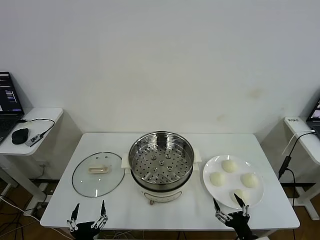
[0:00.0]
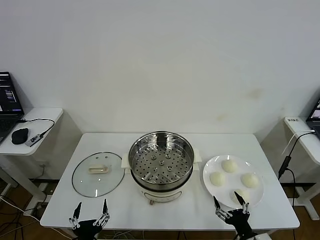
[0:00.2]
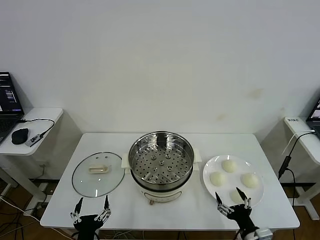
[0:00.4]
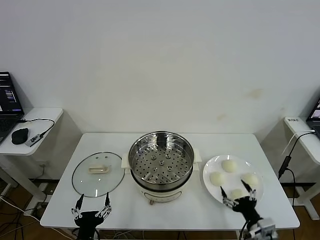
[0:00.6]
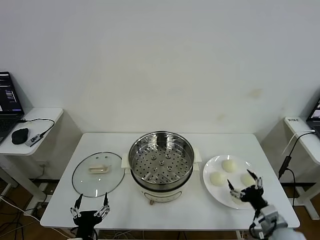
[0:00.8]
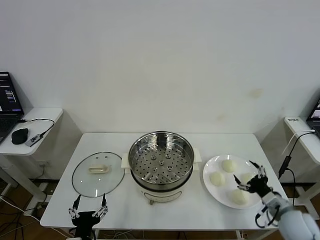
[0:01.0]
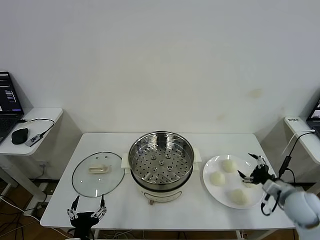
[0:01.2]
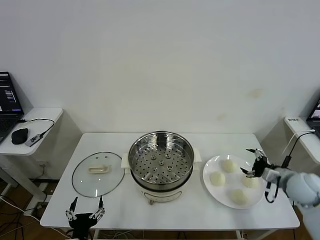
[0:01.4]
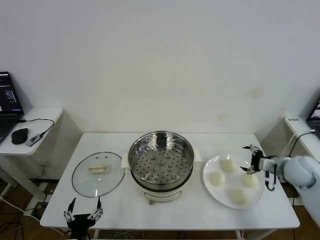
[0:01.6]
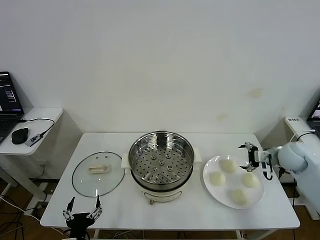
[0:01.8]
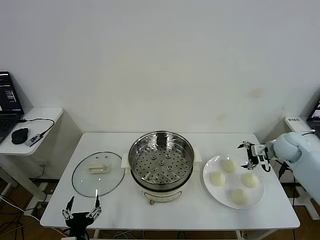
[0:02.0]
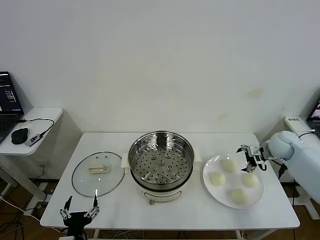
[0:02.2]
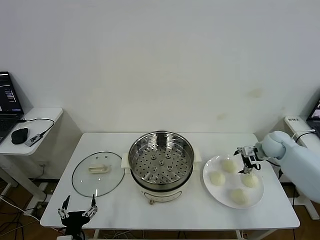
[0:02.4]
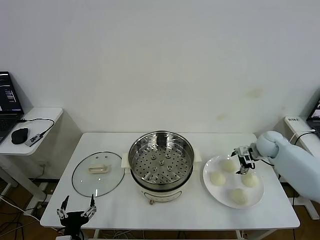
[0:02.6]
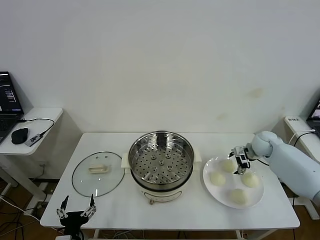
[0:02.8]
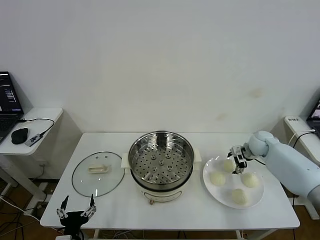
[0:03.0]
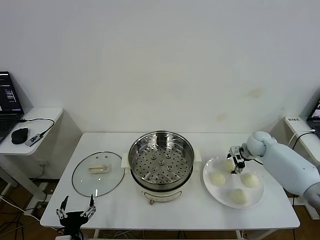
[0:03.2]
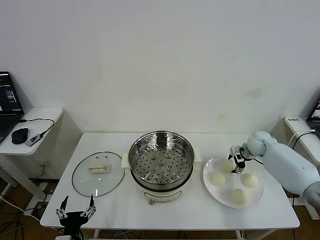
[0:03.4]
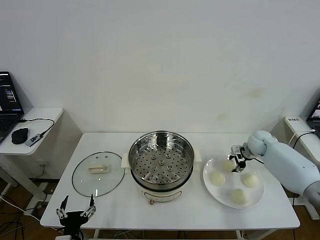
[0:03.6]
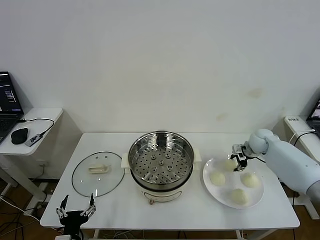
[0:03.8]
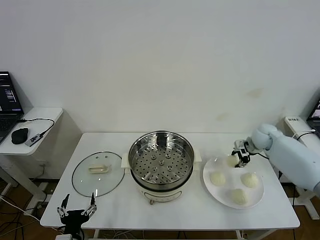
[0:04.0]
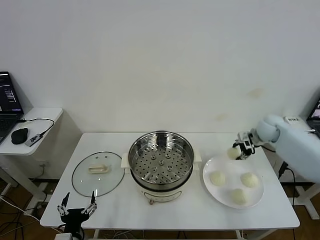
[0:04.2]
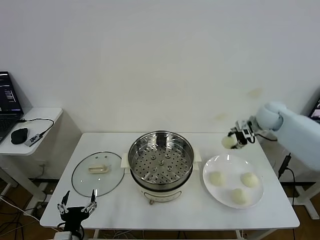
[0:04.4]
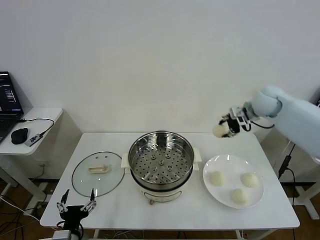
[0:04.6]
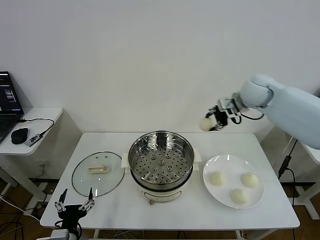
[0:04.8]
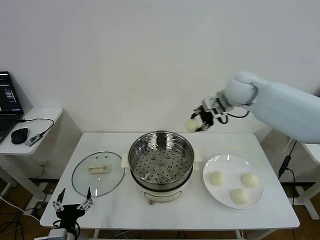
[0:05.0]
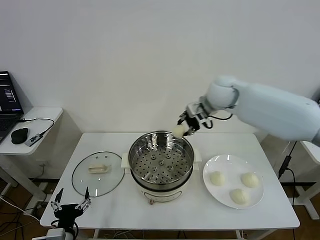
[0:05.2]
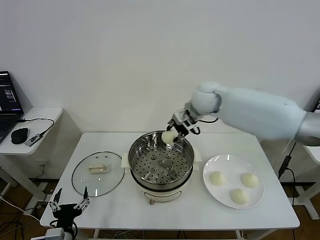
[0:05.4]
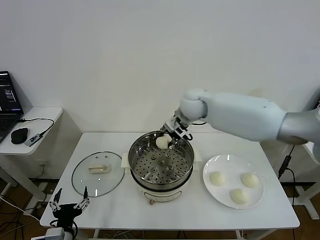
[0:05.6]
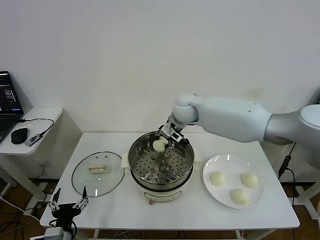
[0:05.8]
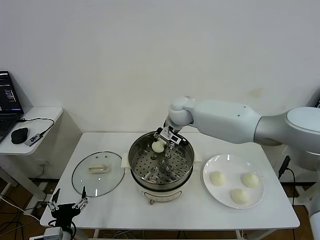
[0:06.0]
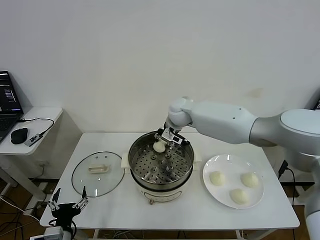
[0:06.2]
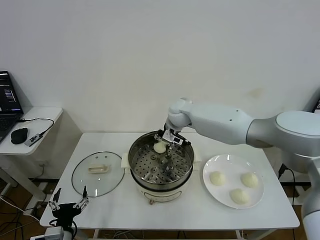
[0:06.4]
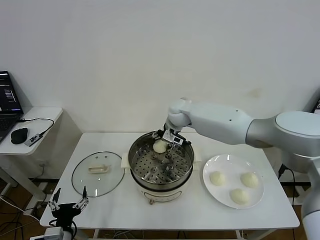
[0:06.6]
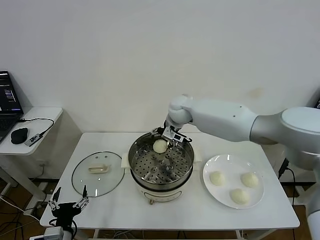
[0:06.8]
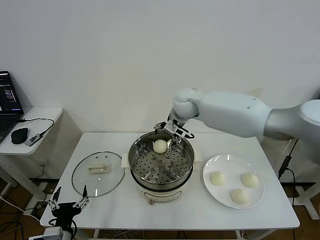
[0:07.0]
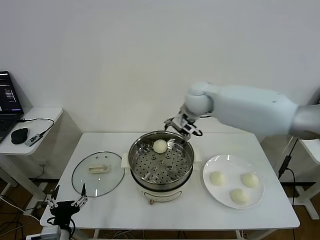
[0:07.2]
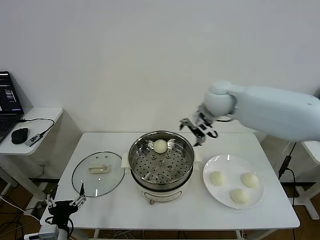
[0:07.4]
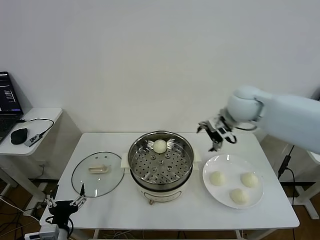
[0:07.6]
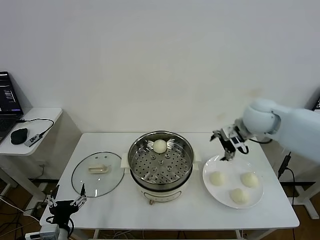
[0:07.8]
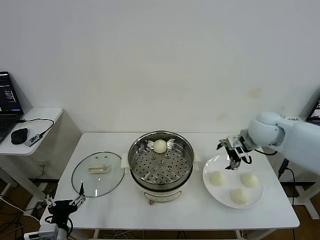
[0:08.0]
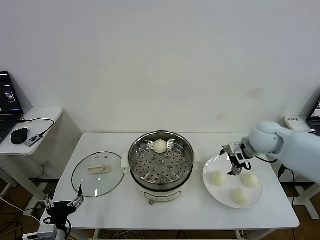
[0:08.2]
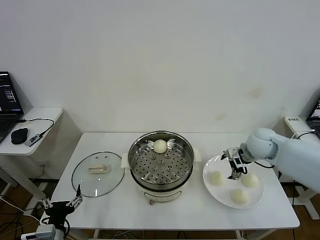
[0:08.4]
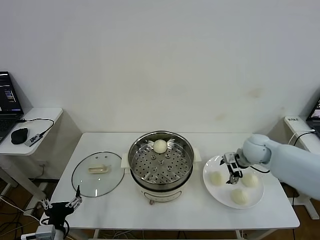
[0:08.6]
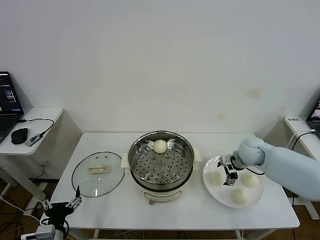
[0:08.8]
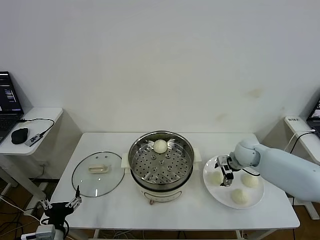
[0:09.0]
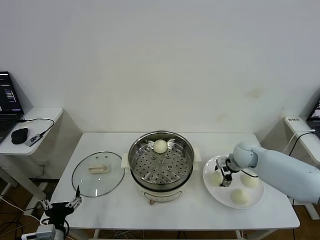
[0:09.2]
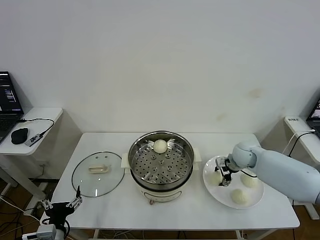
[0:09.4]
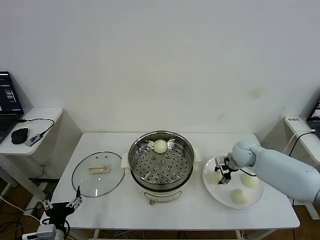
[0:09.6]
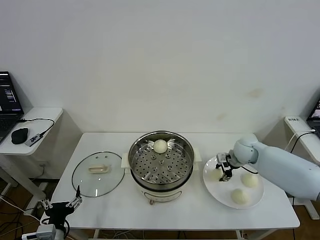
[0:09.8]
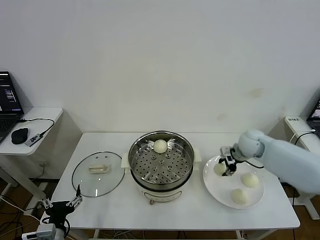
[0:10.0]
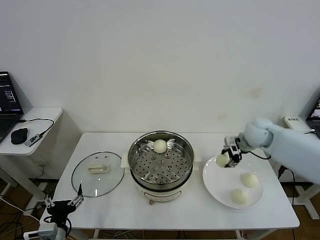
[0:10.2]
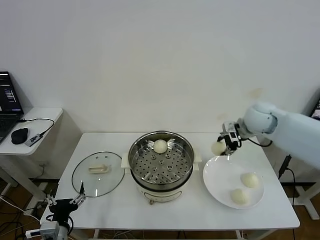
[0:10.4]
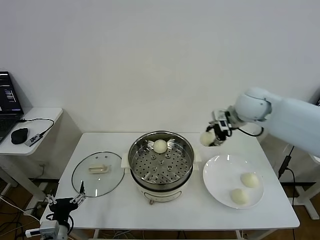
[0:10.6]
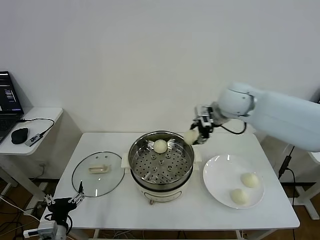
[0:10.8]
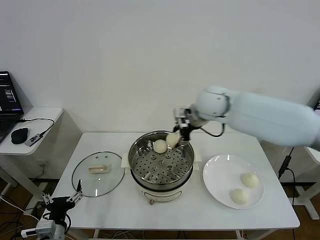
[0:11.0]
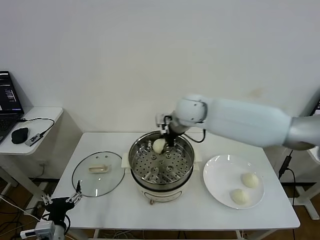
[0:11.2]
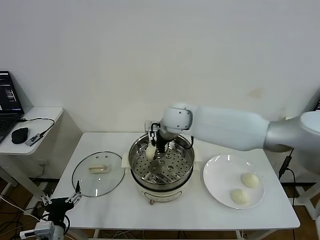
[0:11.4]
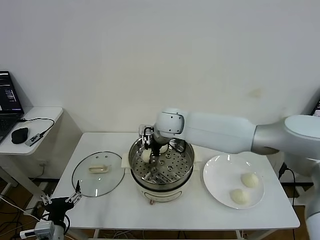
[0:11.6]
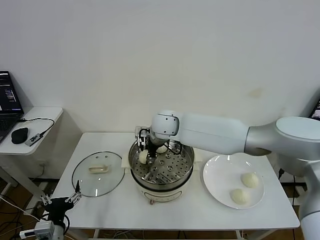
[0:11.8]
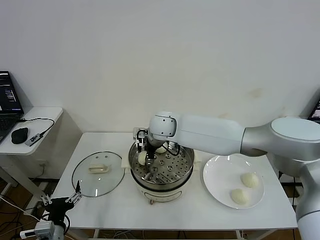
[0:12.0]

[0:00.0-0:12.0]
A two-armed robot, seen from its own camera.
Task of the whole recording: take steamed baozi put them in steamer then cover it.
Step, 0:00.0 to 0:03.4: Grasp the baozi in the plate with right gripper.
Step, 0:03.6 to 0:06.6: Place the baozi on the steamer with right gripper.
Step, 0:06.8 to 0:09.6: Grasp the baozi in the plate with right gripper.
0:01.6 to 0:03.0: The right gripper heads forward and downward, covering about 15 cm.
0:03.0 to 0:04.4: The right gripper heads upward, covering approximately 20 cm, and closes its fingers.
0:04.4 to 0:06.0: The right gripper shifts roughly 30 cm to the left.
0:06.0 to 0:07.6: The right gripper heads to the right and backward, covering some 20 cm, and opens its fingers.
0:07.6 to 0:09.0: The right gripper goes about 20 cm downward.
0:09.0 to 0:10.4: The right gripper shifts roughly 20 cm upward, and closes its fingers.
0:10.4 to 0:12.0: The right gripper moves to the left, about 30 cm.

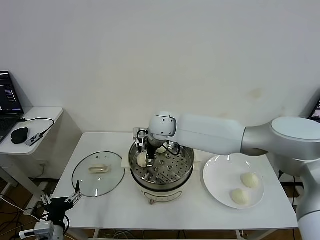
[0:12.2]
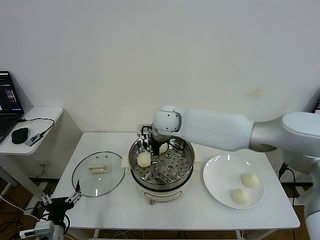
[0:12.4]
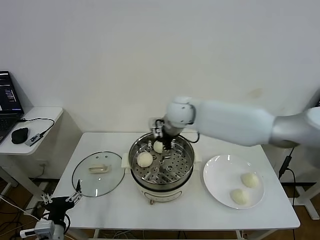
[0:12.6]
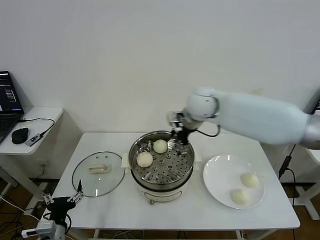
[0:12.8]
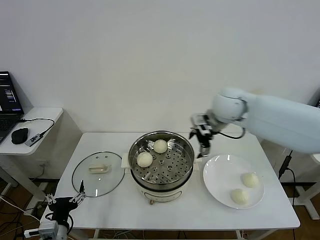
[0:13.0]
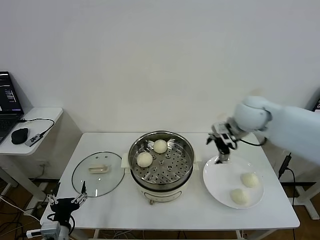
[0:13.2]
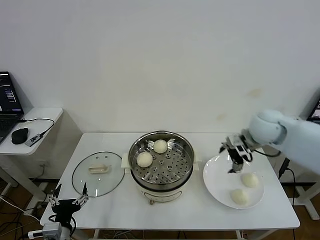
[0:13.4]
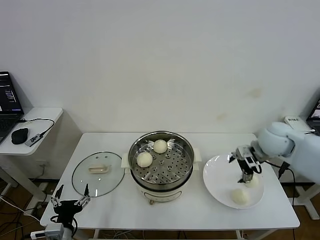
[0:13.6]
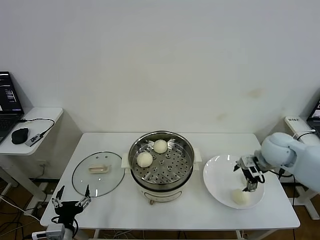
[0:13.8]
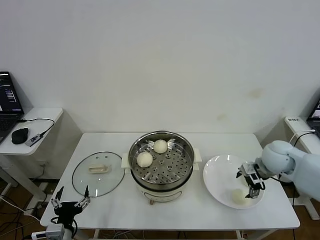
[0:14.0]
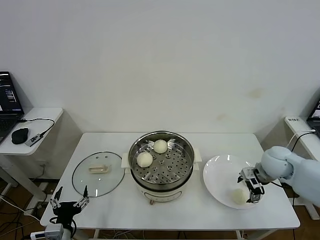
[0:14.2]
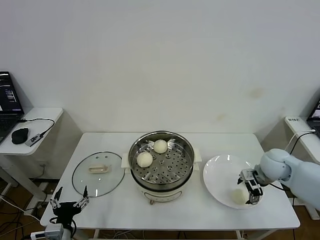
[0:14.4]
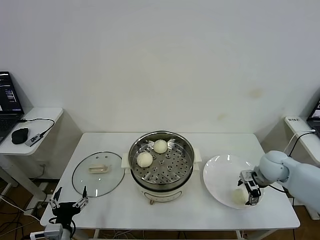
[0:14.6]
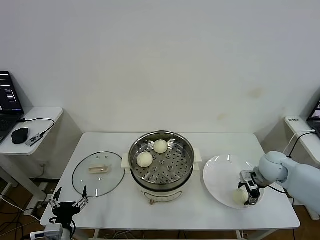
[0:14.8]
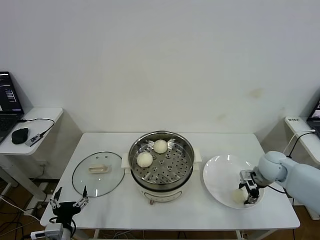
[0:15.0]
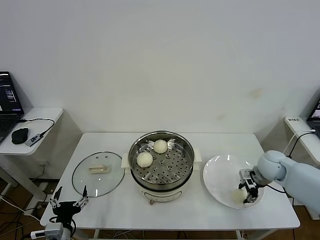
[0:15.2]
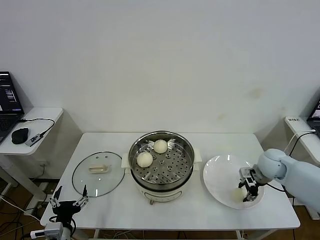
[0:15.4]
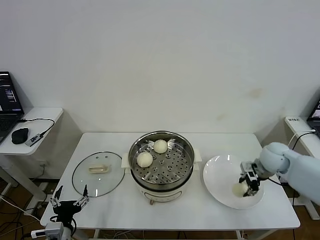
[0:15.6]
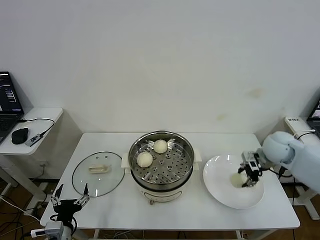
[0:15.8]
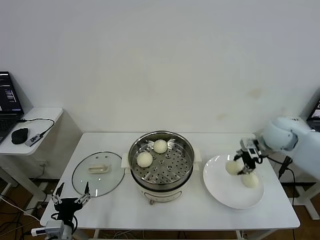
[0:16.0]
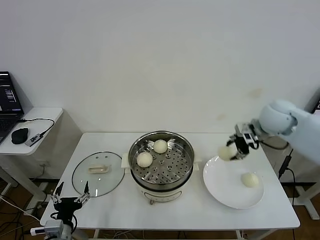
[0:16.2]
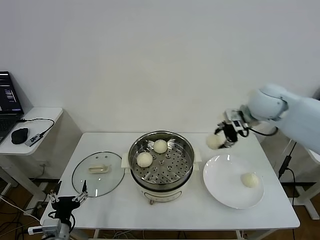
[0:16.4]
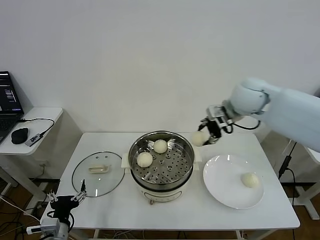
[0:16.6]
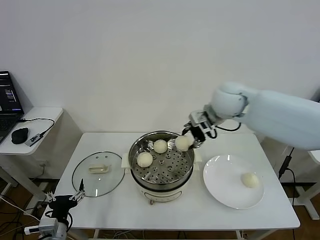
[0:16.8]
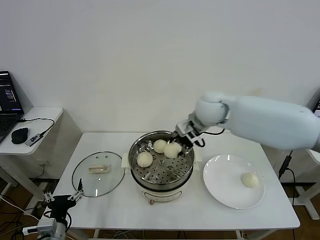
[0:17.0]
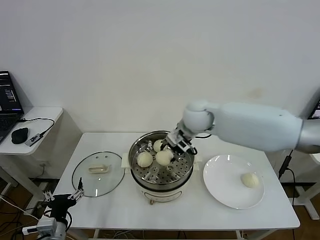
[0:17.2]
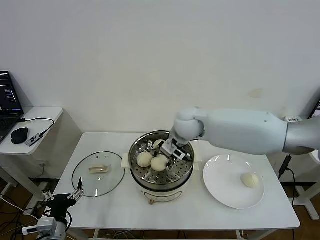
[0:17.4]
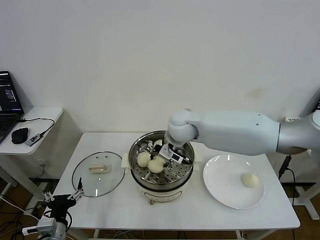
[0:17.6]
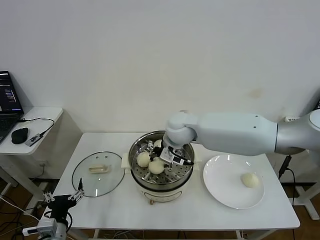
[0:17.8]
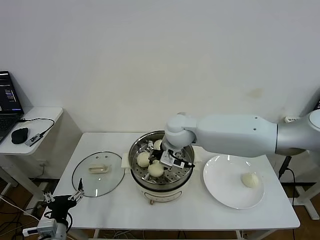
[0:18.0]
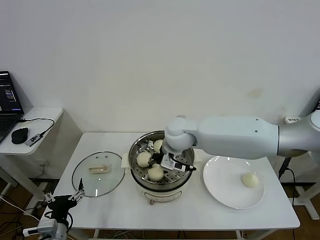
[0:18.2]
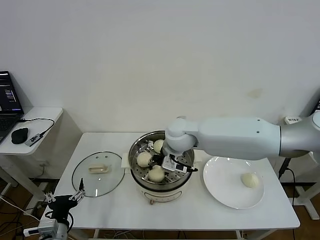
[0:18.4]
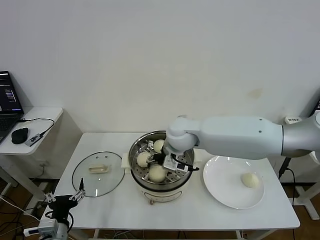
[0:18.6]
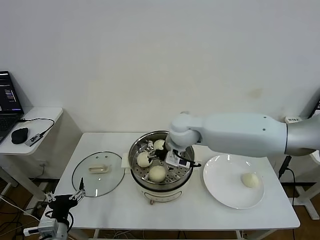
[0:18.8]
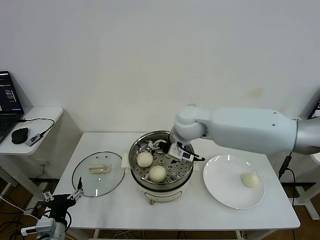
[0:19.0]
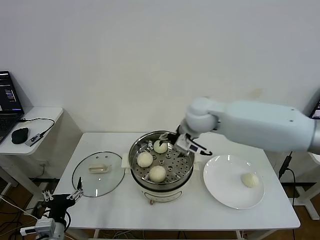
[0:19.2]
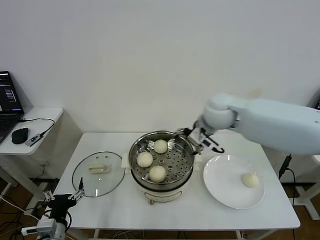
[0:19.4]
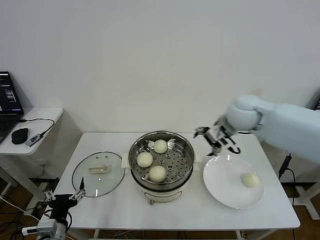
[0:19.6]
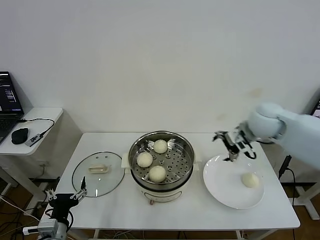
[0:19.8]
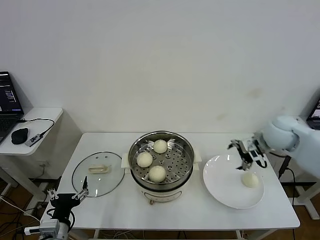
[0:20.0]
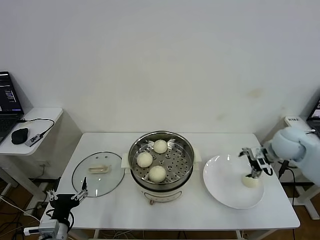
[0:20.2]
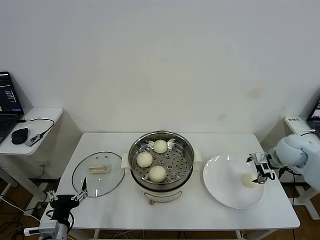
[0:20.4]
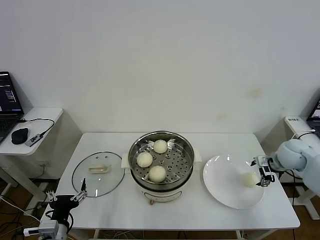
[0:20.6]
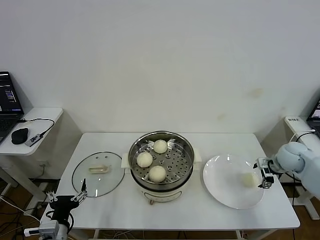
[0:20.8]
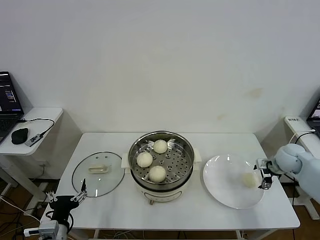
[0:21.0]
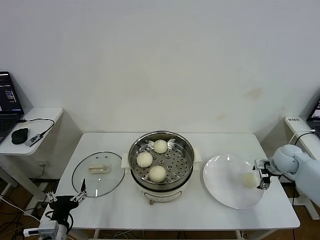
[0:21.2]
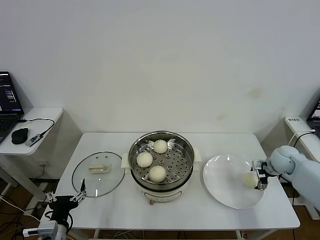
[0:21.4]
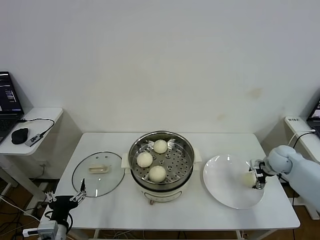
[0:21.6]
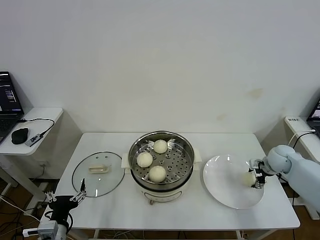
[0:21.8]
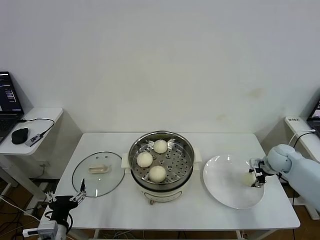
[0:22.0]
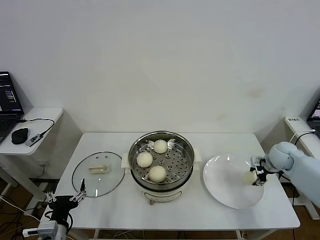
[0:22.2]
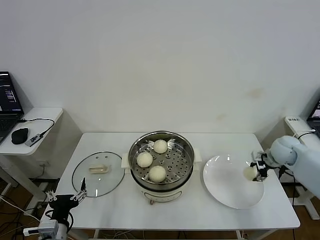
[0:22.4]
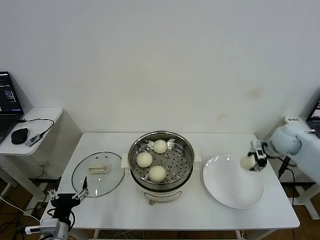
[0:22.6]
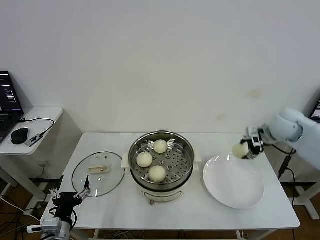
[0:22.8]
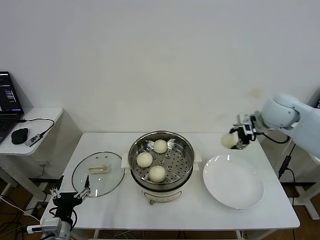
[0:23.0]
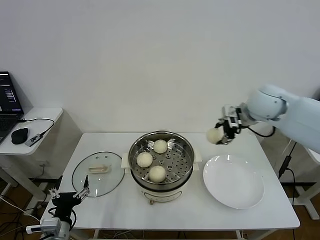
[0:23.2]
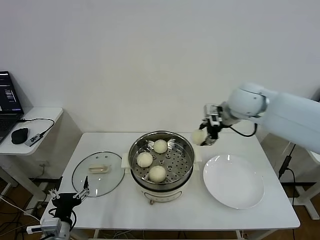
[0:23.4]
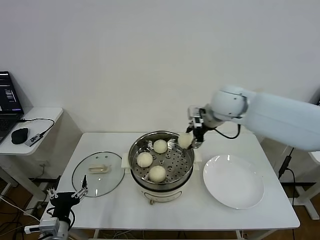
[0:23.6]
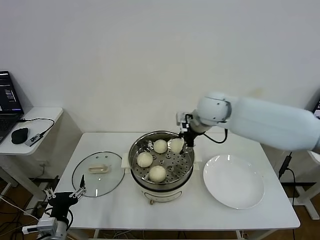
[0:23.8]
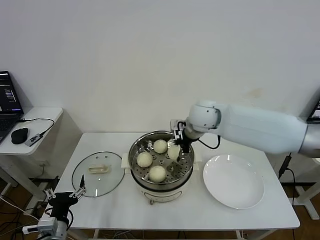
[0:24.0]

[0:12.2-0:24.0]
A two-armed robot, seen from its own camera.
Task of the whole recording: take steamed baozi put them in steamer then cover it.
Step, 0:12.4 to 0:15.4: Grasp the baozi in the plate with right gripper.
Step, 0:15.6 to 0:18.6: Place the baozi on the steamer with right gripper.
Step, 0:18.8 to 0:22.2: Grasp the baozi in the plate with right gripper.
0:12.2 to 0:13.6: The right gripper goes some 35 cm to the right.
0:13.6 to 0:15.2: The right gripper shifts roughly 10 cm downward, and closes up.
0:15.2 to 0:16.6: The right gripper is displaced upward and to the left by about 30 cm.
0:16.6 to 0:18.2: The right gripper shifts some 20 cm to the left and downward.
0:18.2 to 0:19.6: The right gripper travels to the right by some 20 cm, and opens.
0:19.6 to 0:21.0: The right gripper shifts some 30 cm to the right and downward.
0:21.0 to 0:22.6: The right gripper moves upward, about 5 cm, and closes up.
0:22.6 to 0:24.0: The right gripper goes approximately 30 cm to the left.
